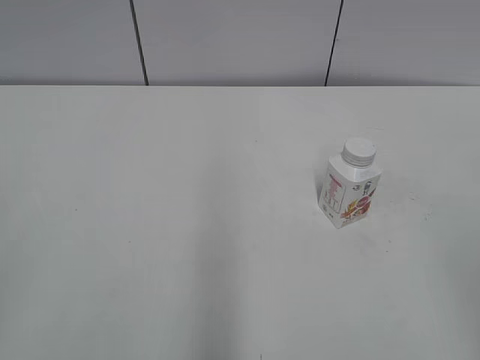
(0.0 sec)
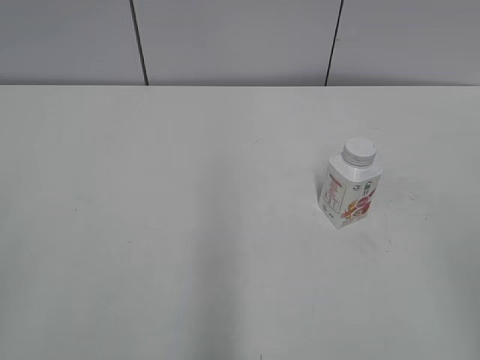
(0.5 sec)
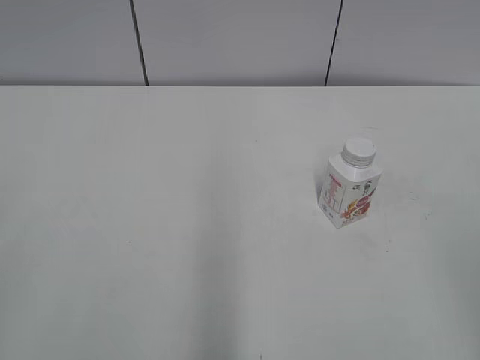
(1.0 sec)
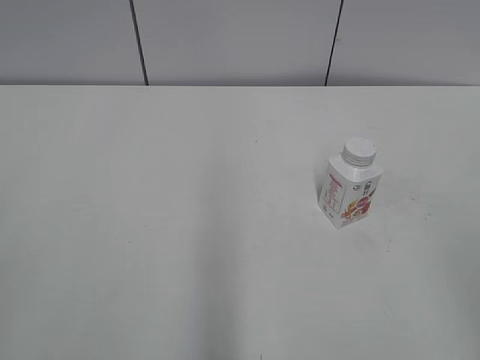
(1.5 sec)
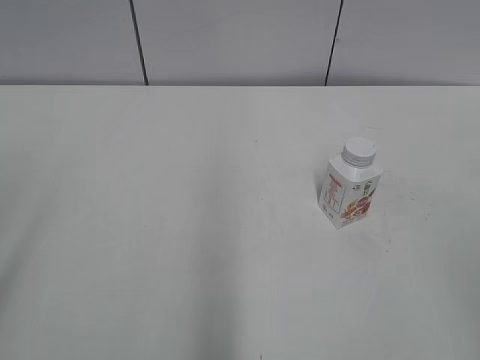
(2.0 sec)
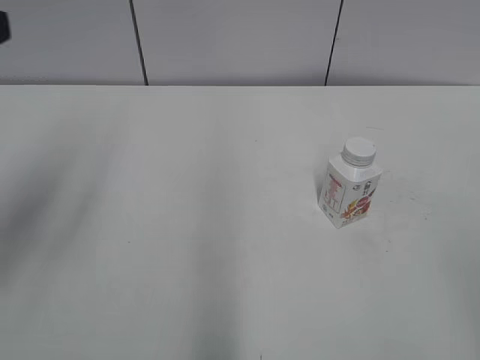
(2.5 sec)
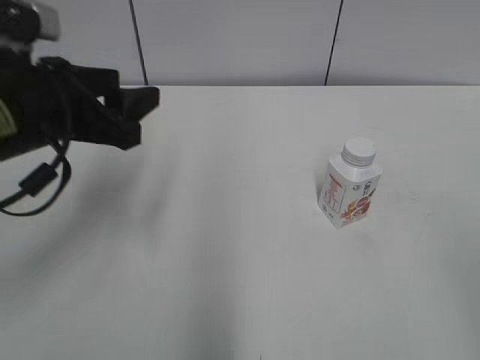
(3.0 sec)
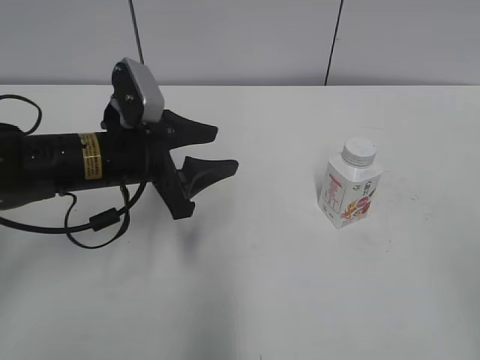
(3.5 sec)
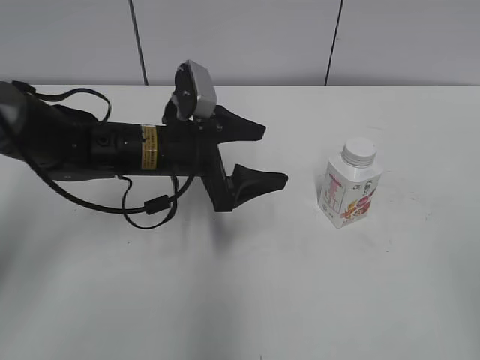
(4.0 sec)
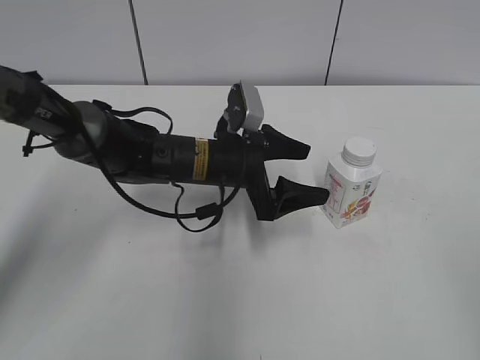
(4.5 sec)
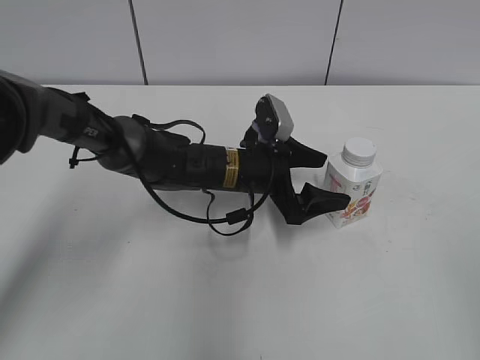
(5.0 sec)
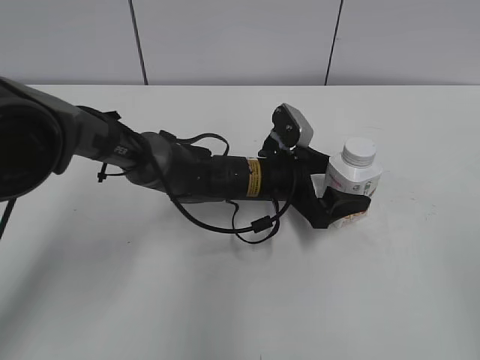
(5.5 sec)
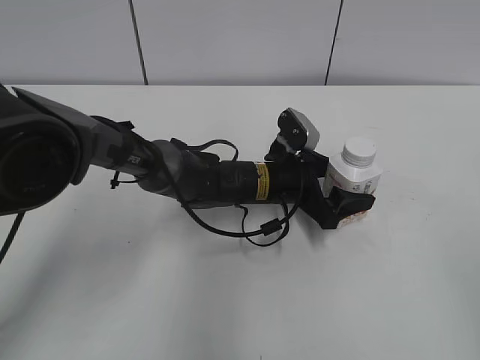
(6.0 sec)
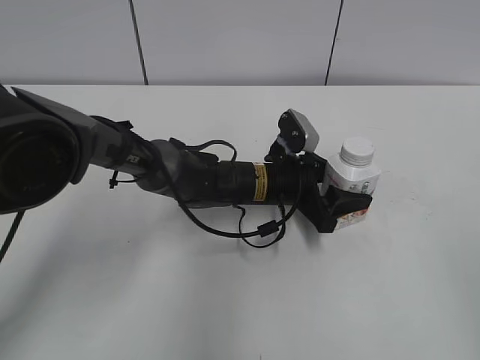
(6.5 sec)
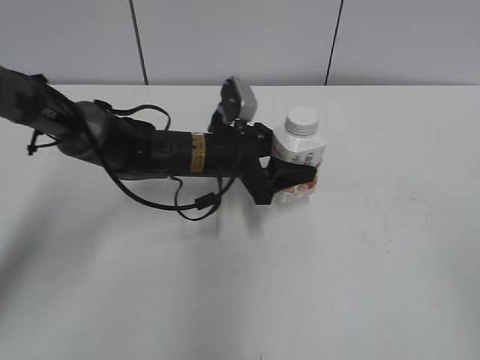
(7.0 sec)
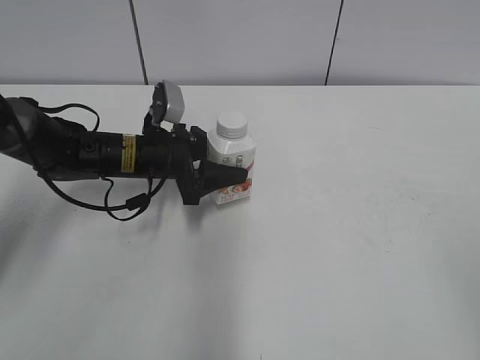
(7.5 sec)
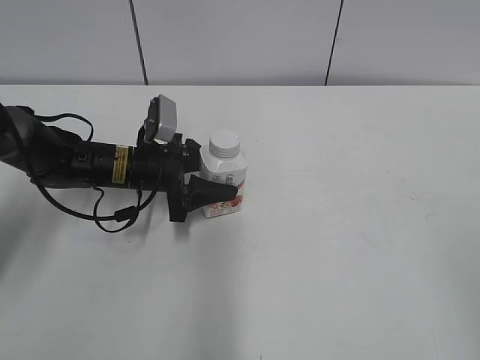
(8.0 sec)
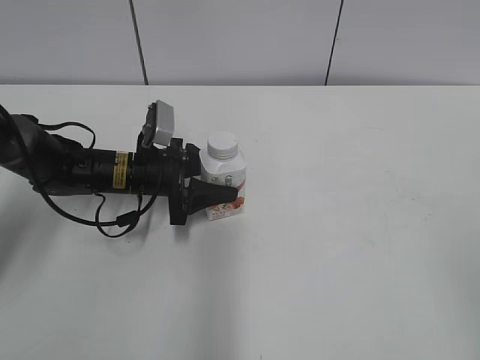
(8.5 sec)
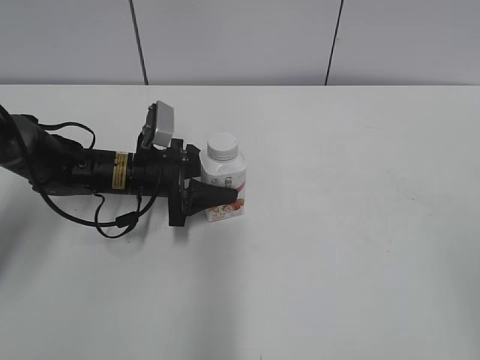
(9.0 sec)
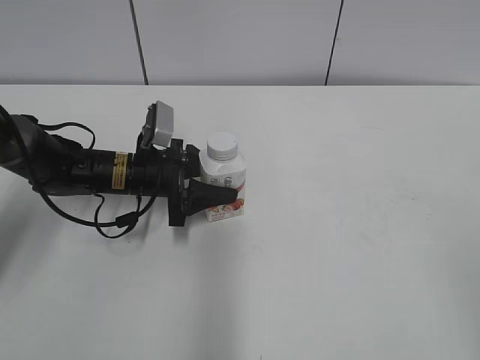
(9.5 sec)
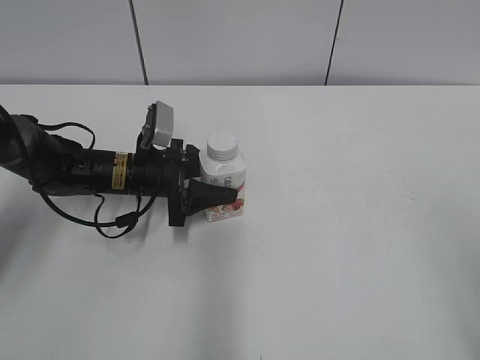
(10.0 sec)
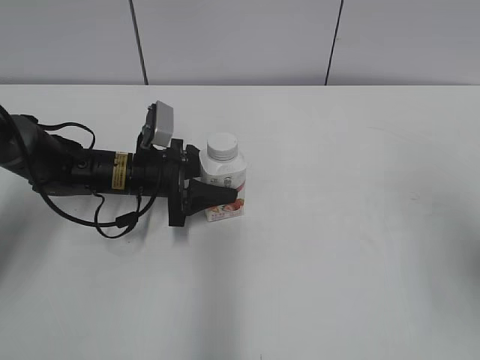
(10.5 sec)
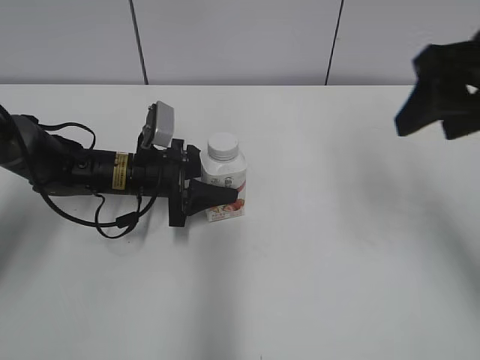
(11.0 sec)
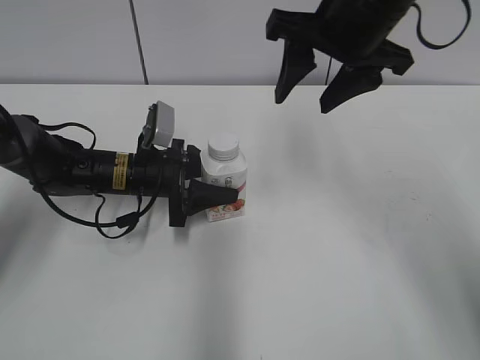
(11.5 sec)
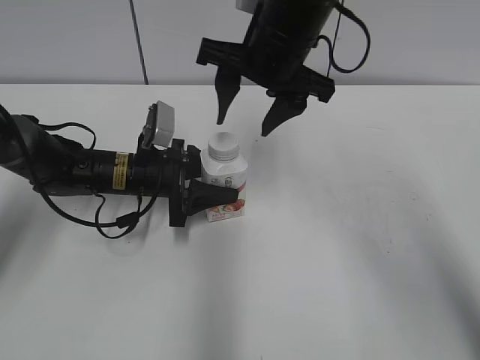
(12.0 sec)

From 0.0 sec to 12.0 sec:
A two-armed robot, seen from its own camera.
Step, from 0.0 sec to 6.0 sec: Grab the Yili Changqing with the left hand.
Step, from 6.5 sec to 8.5 sec: Move the Yili Changqing from right to left.
From 2.0 sec to 4.0 sec: The left gripper shifts some 40 cm forward, to the right and downward, and opens.
From 4.0 sec to 6.0 sec: The left gripper travels to the right and downward by approximately 15 cm.
From 6.0 sec to 8.0 sec: The left gripper moves to the left, about 20 cm, and closes up.
From 8.0 sec to 10.0 sec: The grippers stay close to where they were, moving slightly.
From 10.0 sec to 12.0 sec: The right gripper moves forward and to the left, approximately 40 cm.

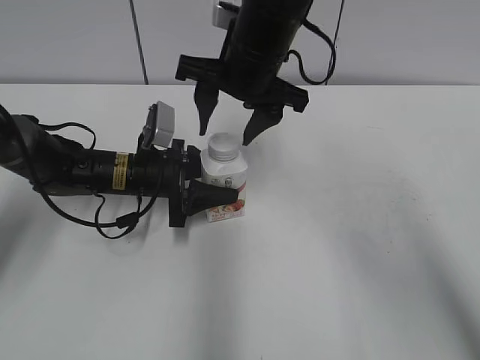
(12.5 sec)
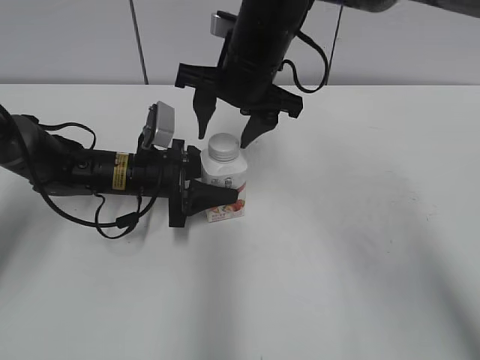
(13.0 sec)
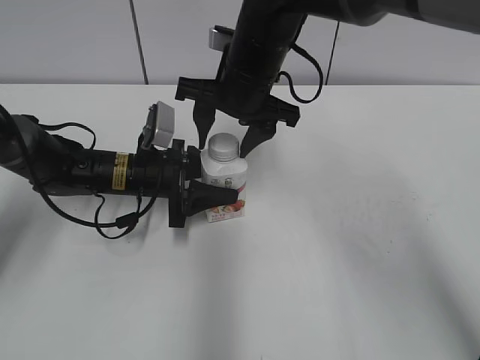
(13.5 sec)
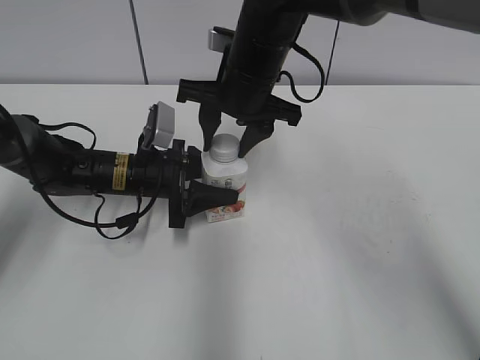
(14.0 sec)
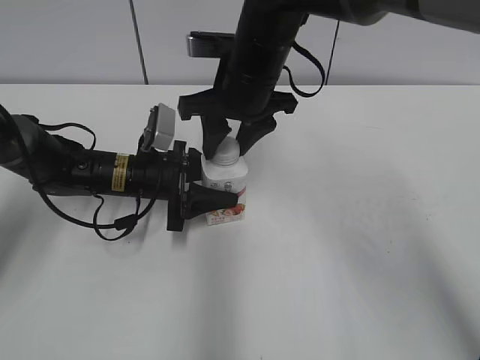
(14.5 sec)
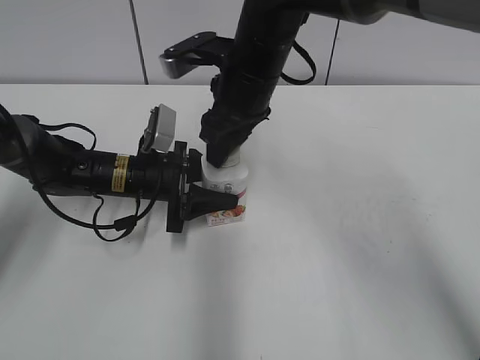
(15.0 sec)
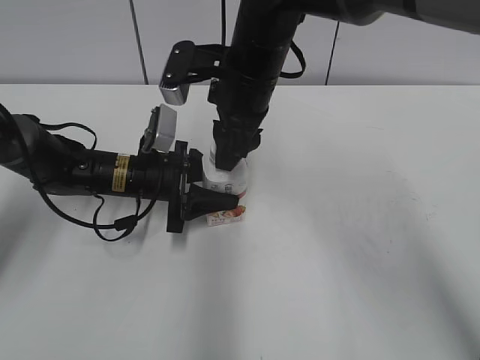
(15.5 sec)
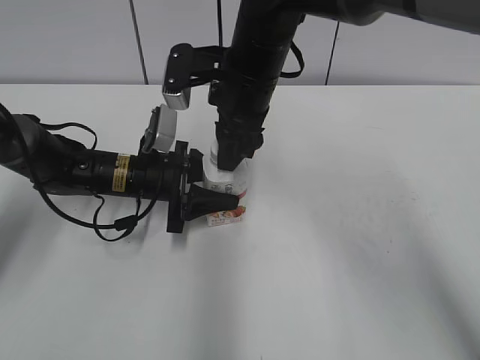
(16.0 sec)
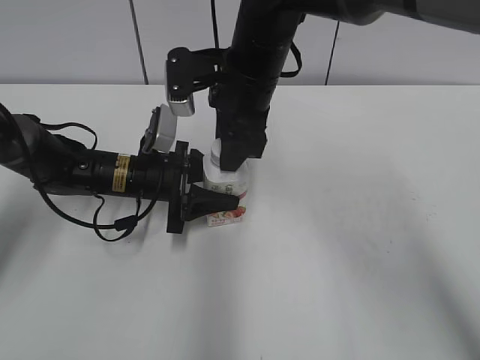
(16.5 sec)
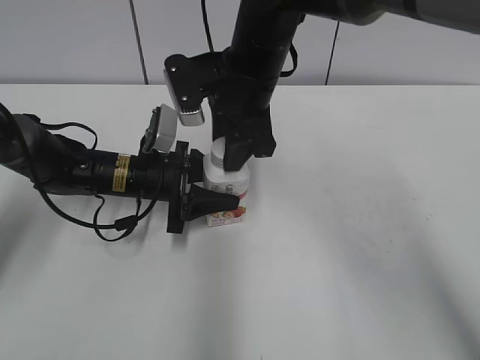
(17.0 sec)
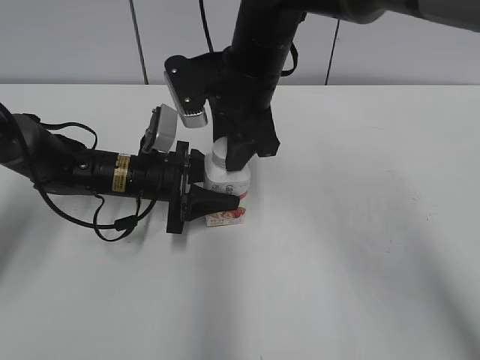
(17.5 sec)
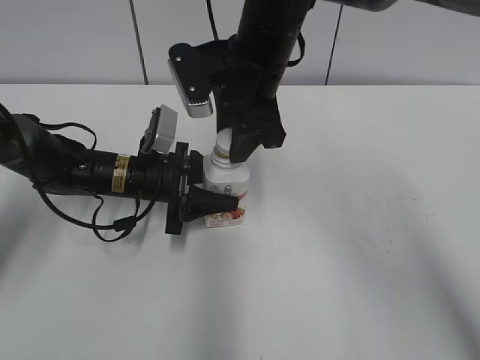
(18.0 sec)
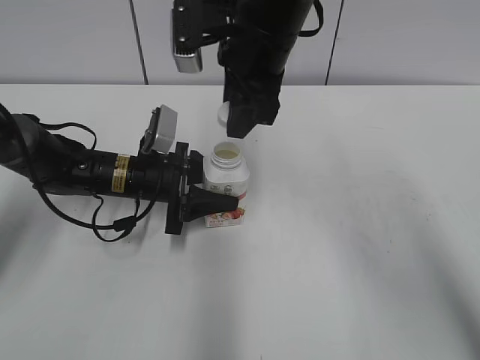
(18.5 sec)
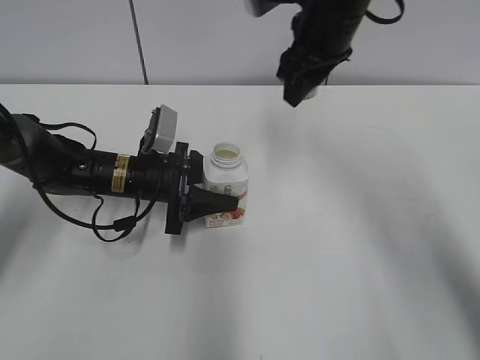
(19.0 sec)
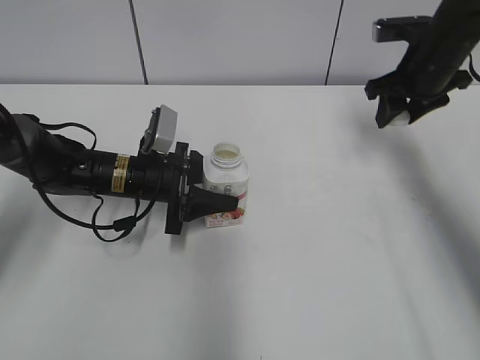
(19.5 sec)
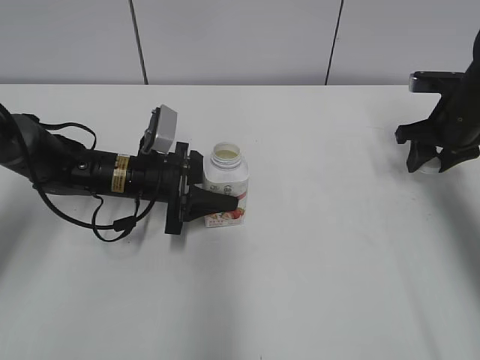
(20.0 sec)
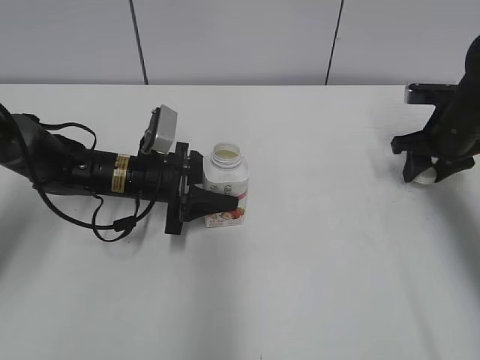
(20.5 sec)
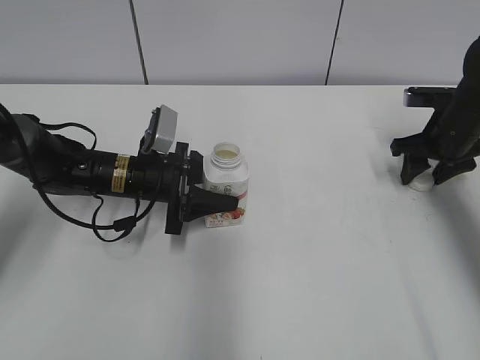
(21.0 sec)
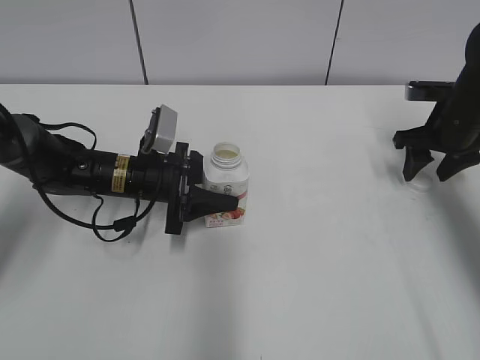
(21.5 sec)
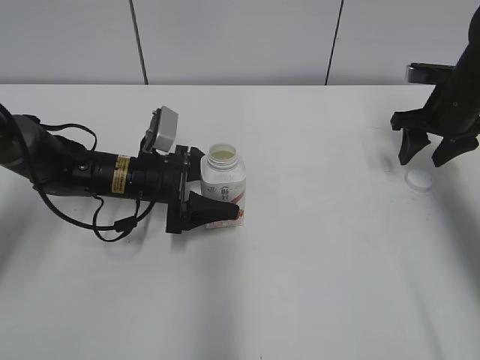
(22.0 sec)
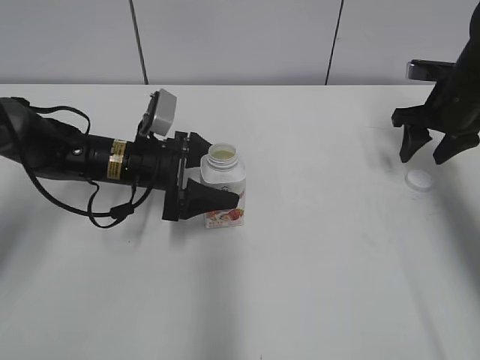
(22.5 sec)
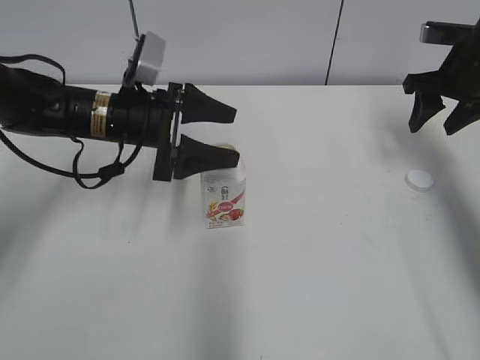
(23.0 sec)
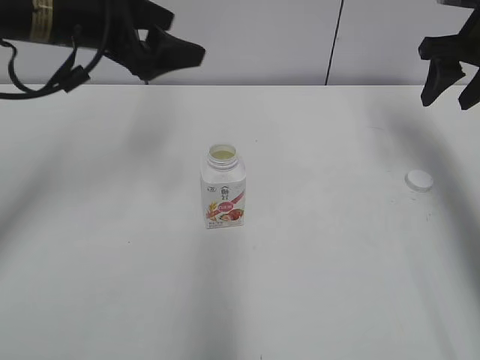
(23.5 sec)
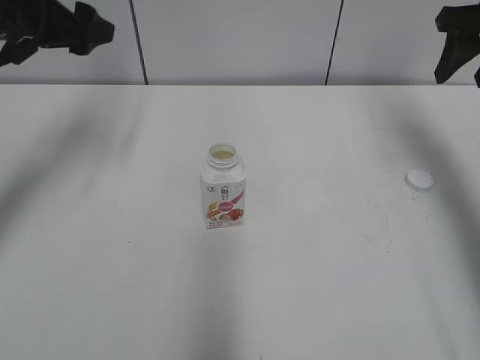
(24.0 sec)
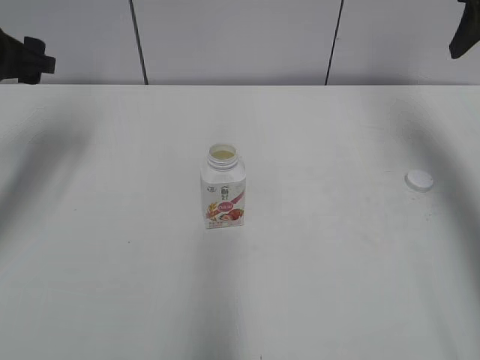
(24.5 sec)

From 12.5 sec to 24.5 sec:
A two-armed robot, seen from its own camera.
Step, from 18.5 sec to 20.5 sec: Place the bottle cap on the right.
From 12.5 sec to 14.5 sec: The right gripper closes up.
From 16.5 sec to 18.5 sec: The right gripper moves upward, approximately 5 cm.
From 18.5 sec to 20.5 sec: The right gripper moves to the right and downward, roughly 30 cm.
From 20.5 sec to 22.5 sec: The right gripper opens its fingers. Meanwhile the left gripper opens its fingers.
From 22.5 sec to 24.5 sec: The left gripper shifts roughly 25 cm upward and to the left. Meanwhile the right gripper heads upward, covering some 20 cm.

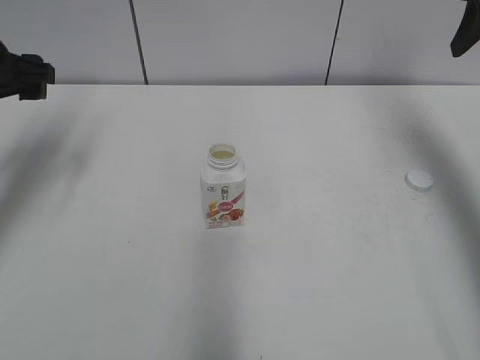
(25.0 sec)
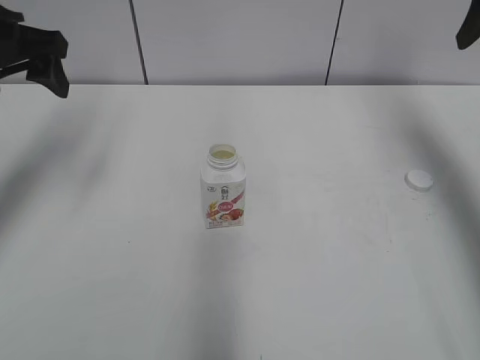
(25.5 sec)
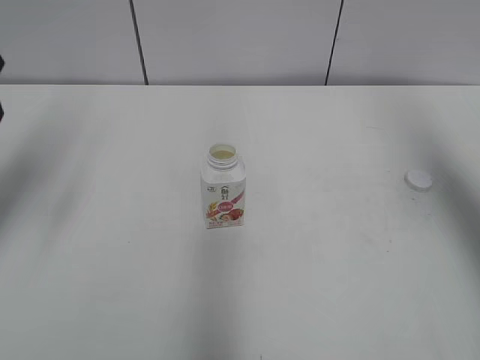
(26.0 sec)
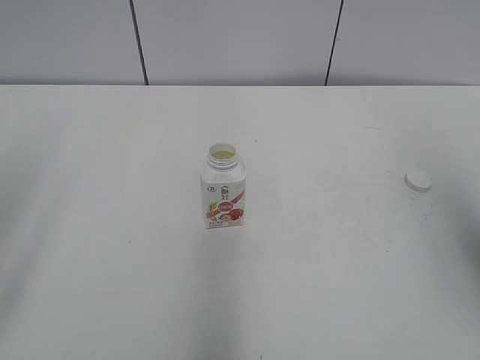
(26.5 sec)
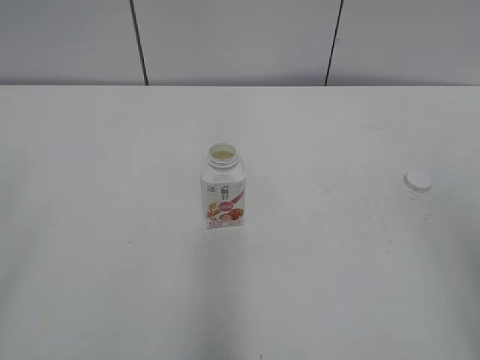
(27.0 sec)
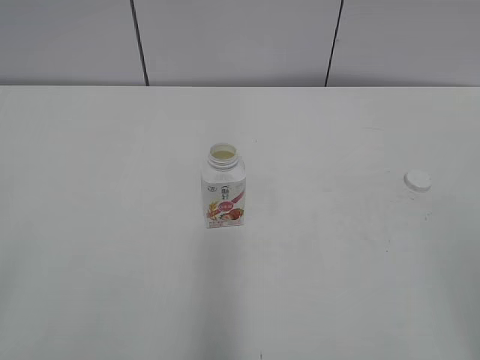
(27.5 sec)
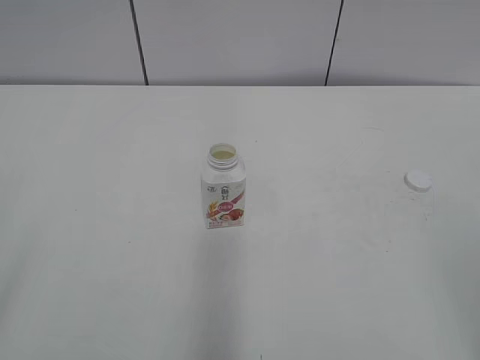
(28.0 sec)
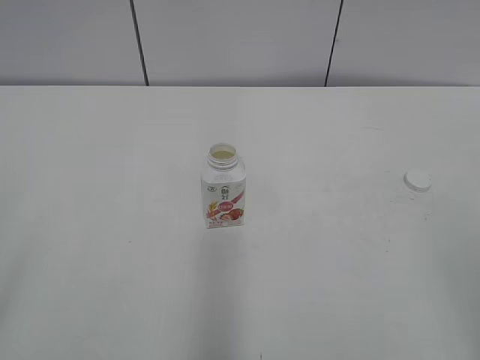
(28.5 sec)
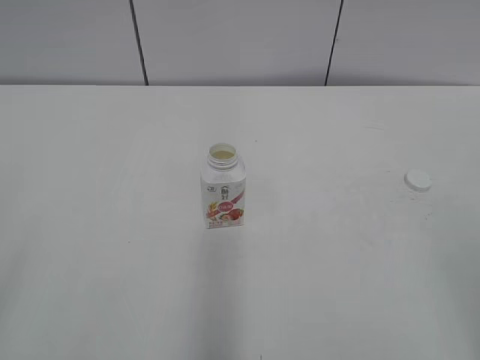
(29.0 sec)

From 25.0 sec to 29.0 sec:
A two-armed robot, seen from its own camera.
From 25.0 sec to 27.0 sec: Both grippers travel together backward, some 30 cm.
